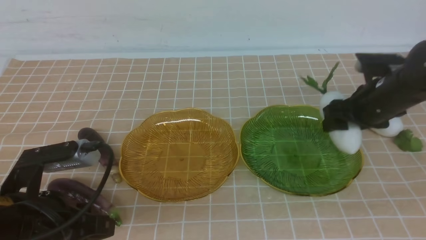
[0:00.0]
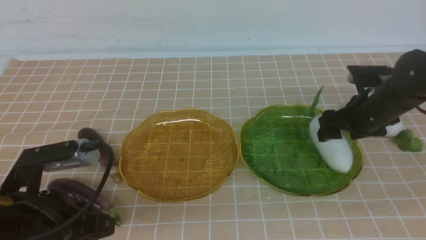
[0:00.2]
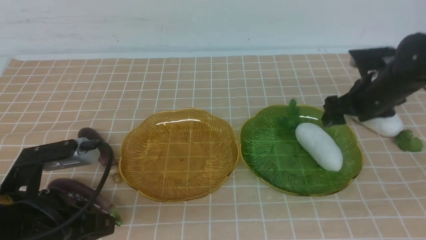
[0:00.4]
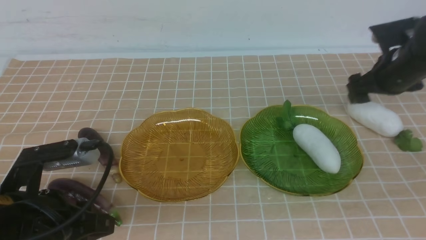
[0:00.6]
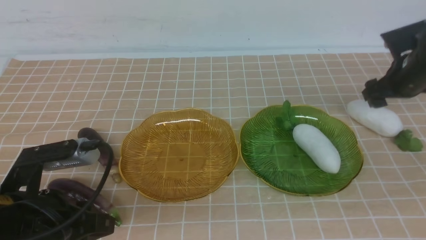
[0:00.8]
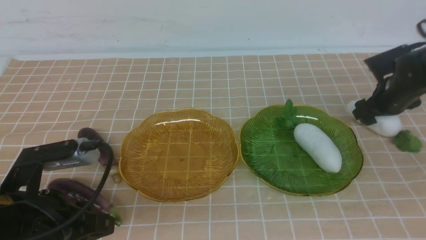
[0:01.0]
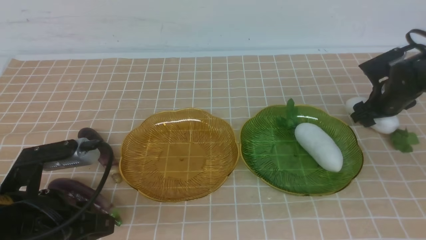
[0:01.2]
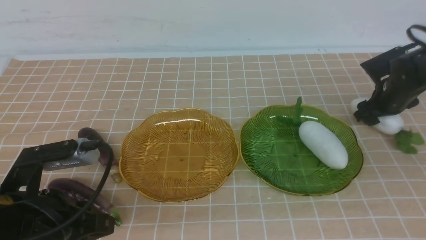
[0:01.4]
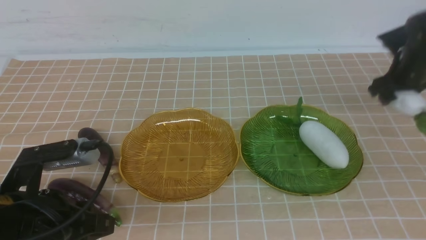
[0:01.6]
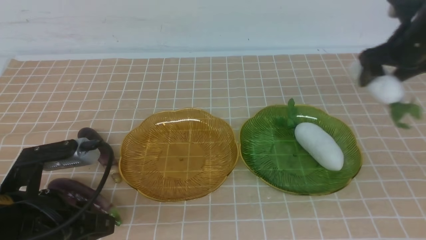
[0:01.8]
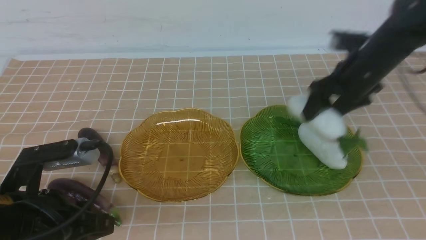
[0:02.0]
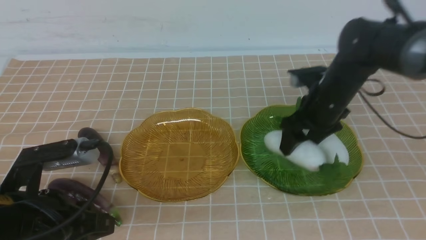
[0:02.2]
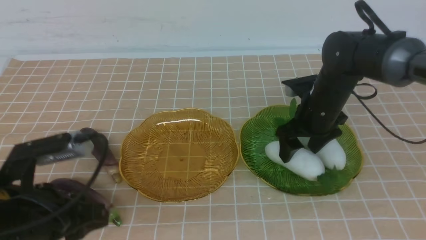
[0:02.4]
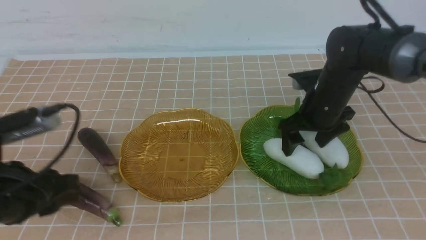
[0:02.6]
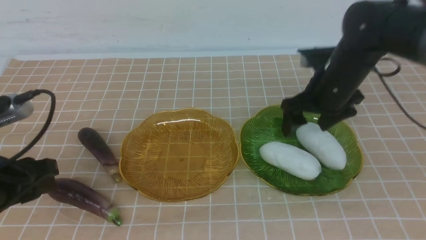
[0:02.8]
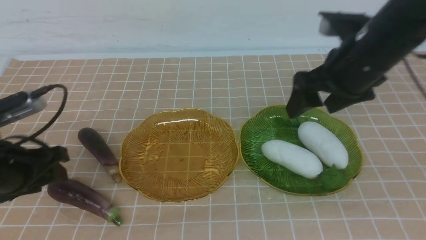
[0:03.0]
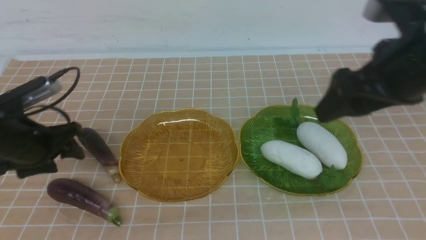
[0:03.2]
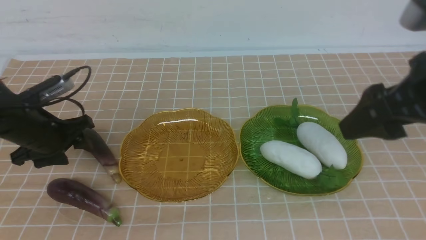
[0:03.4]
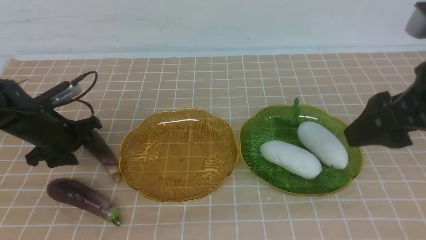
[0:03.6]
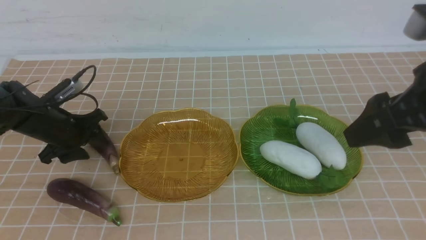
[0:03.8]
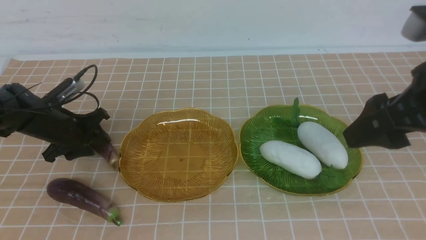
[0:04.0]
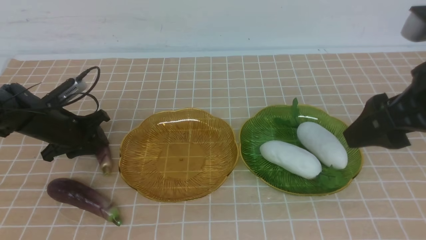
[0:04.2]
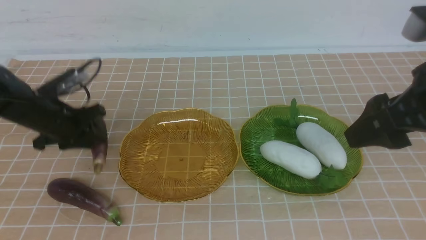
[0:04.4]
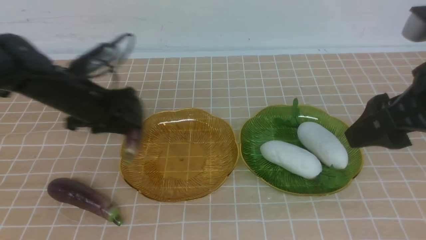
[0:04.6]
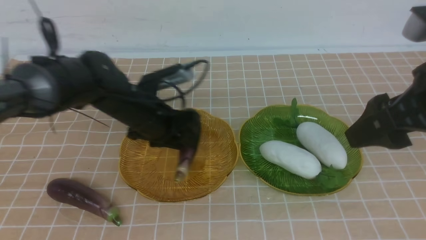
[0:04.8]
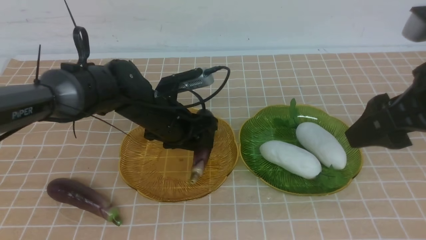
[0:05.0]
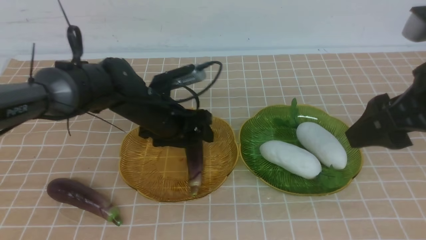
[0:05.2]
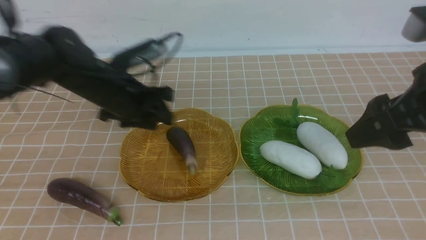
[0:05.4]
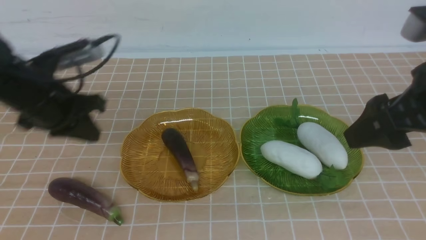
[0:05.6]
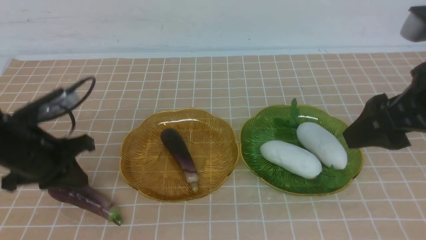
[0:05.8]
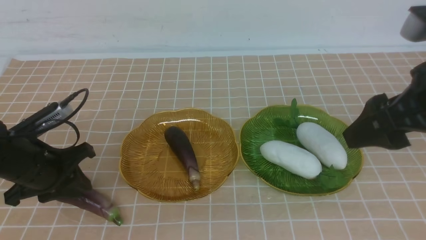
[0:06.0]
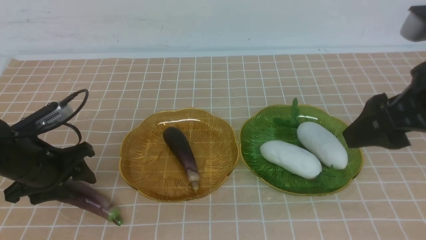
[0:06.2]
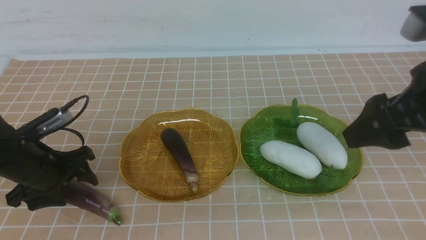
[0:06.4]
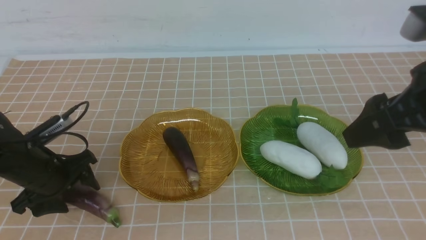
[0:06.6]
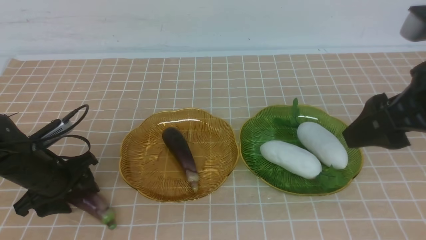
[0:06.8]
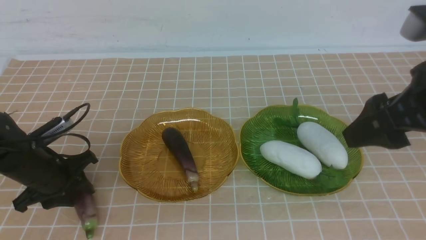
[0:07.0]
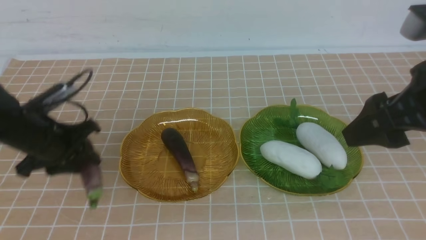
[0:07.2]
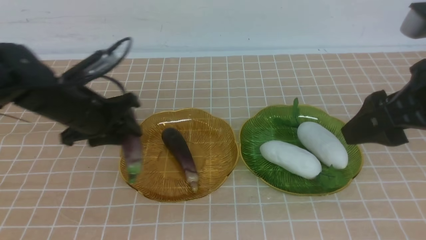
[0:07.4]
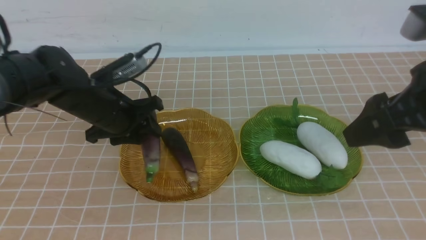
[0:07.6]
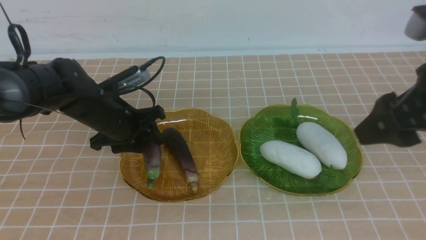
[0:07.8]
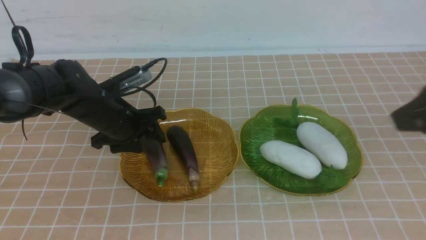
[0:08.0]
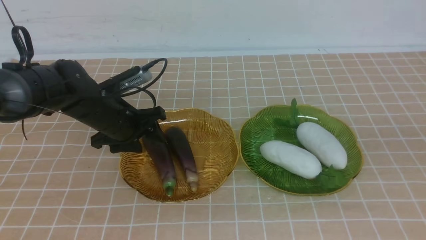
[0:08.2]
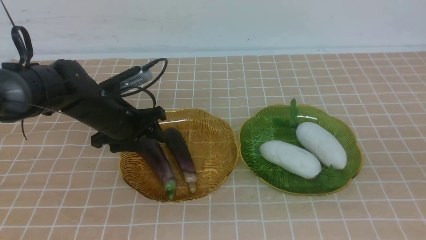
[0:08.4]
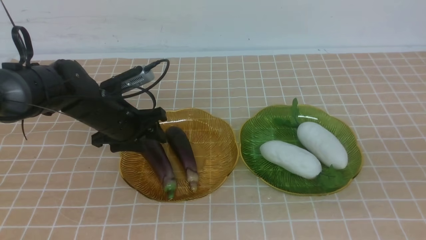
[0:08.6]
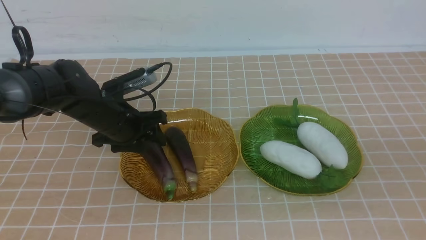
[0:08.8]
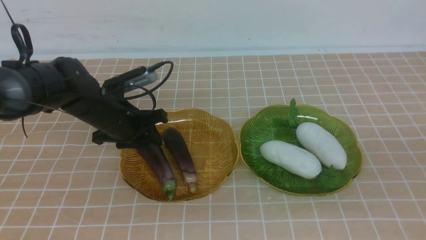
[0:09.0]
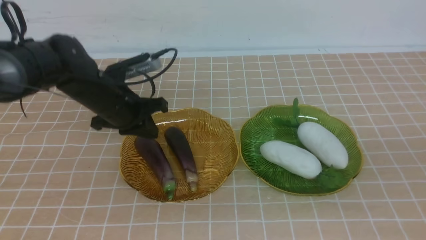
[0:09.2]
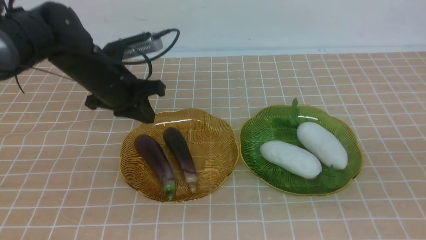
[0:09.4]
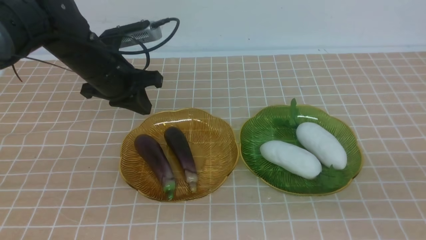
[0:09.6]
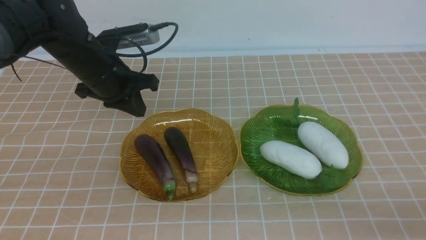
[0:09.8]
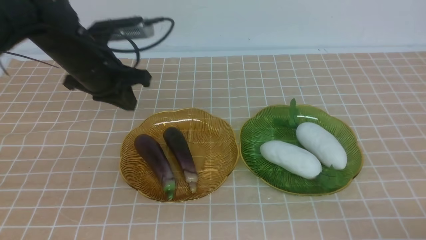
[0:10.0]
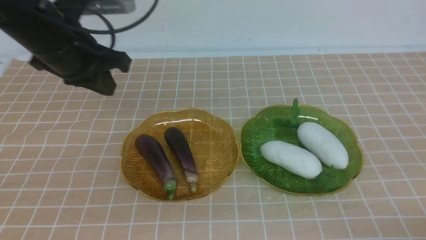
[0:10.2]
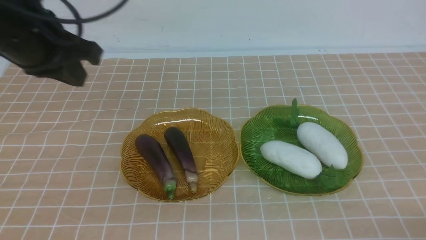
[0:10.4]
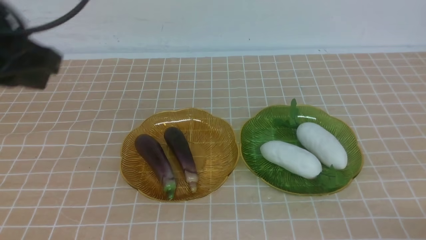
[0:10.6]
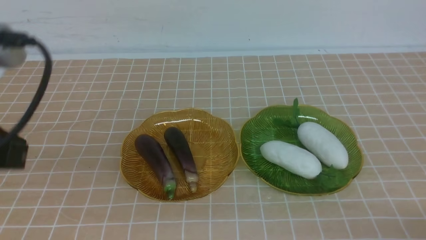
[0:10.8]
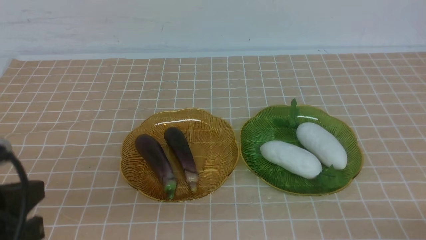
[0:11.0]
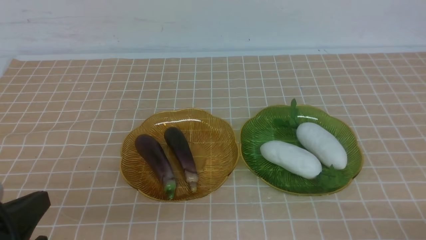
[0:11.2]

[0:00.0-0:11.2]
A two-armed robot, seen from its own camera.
Step, 0:00.0 to 0:02.6: use the right arm to grab a radish and put it into the right plate.
Step, 0:02.8 to 0:09.4: use the left arm to grab an eggplant and put it into the left plate.
0:00.0 to 0:01.6: The right gripper shifts about 10 cm forward and to the right.
0:01.6 to 0:03.2: The left gripper travels forward and to the left by approximately 20 cm, and opens; the right gripper is displaced backward, upward and to the left by roughly 30 cm.
0:03.2 to 0:04.8: The left gripper is displaced to the right by about 15 cm, and closes, then reopens.
0:04.8 to 0:06.4: The left gripper shifts some 20 cm to the left and backward, and closes, then reopens.
0:06.4 to 0:08.0: The right gripper closes its fingers. The left gripper heads to the right and forward, covering about 15 cm.
0:08.0 to 0:09.6: The right gripper shifts approximately 15 cm backward, downward and to the right, and closes its fingers. Meanwhile the left gripper goes about 5 cm upward, and closes up.
0:09.6 to 0:11.2: The left gripper shifts about 30 cm backward; the right gripper travels downward by some 10 cm.

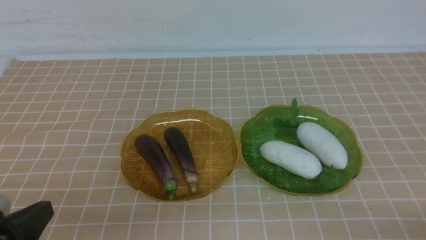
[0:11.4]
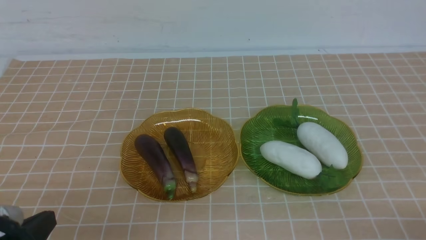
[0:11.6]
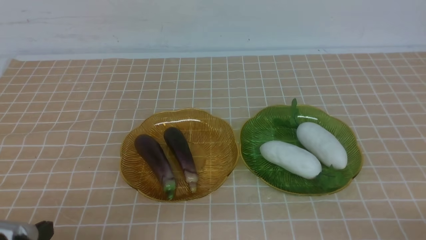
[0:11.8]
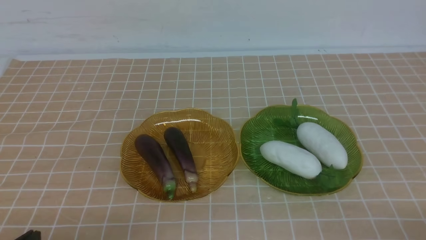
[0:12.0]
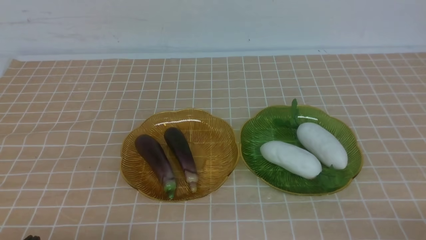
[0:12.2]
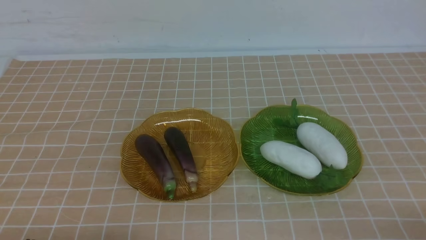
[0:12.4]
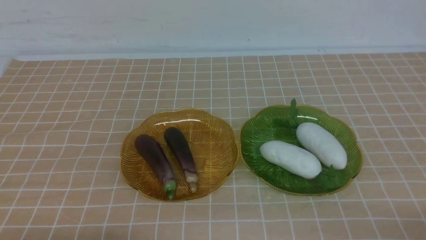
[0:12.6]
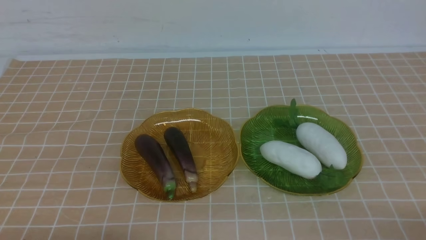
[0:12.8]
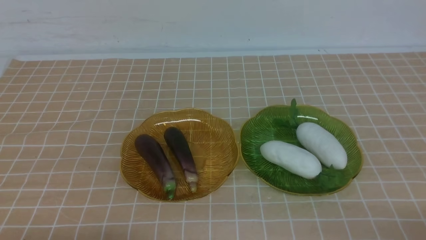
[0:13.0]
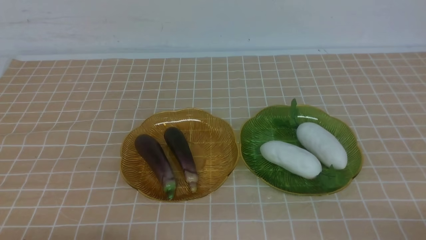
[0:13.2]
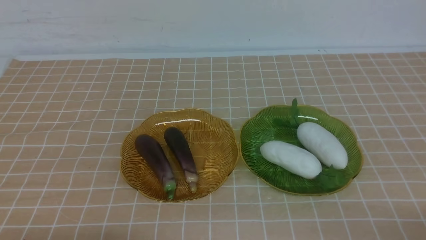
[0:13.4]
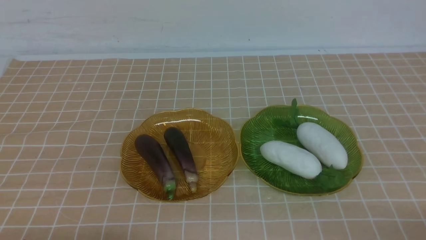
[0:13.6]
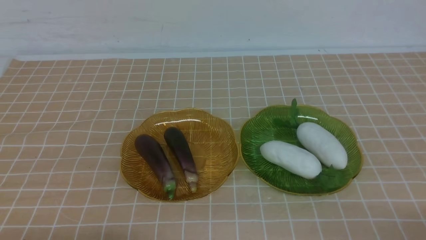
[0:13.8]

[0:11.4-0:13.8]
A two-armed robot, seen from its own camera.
0:11.4 to 0:12.6: The left gripper shifts about 5 cm downward.
0:12.6 to 0:13.8: Both grippers stay about where they are.
